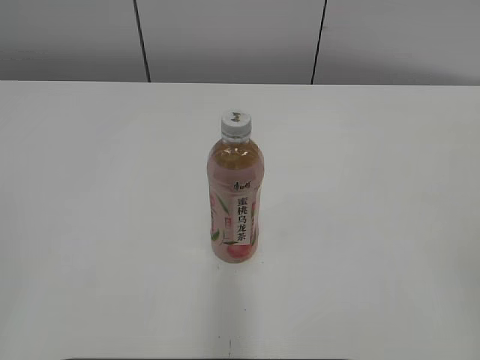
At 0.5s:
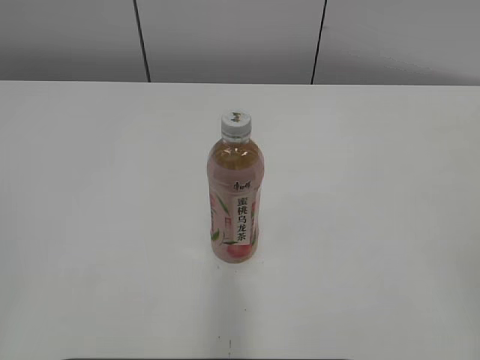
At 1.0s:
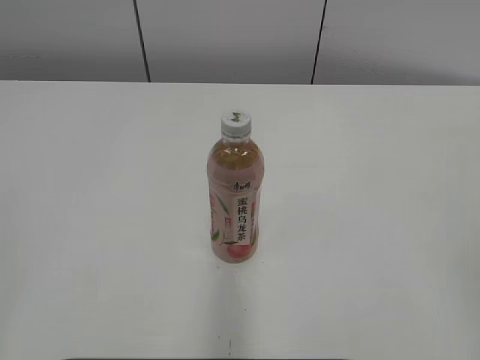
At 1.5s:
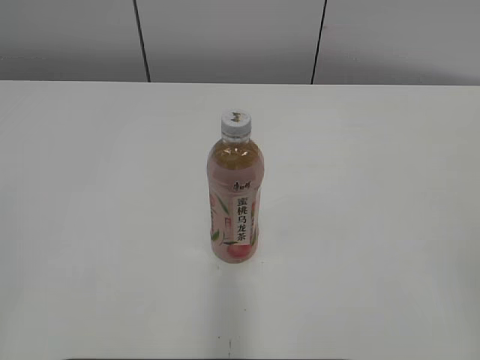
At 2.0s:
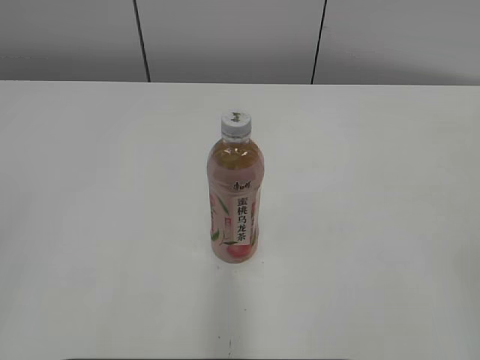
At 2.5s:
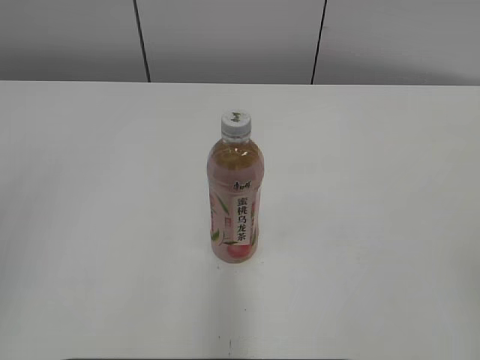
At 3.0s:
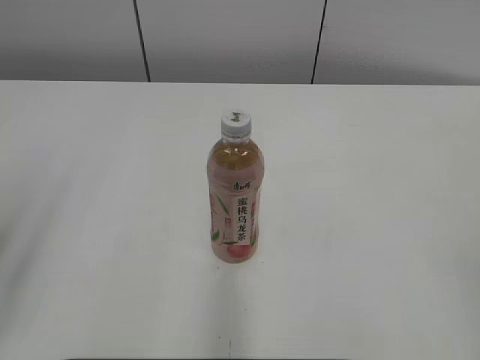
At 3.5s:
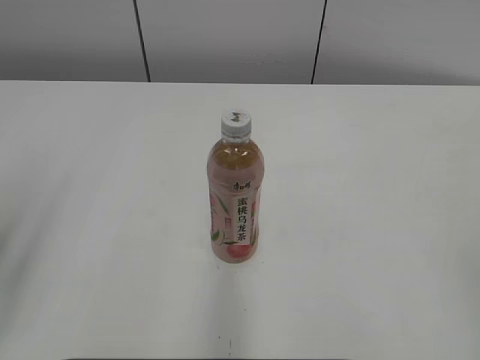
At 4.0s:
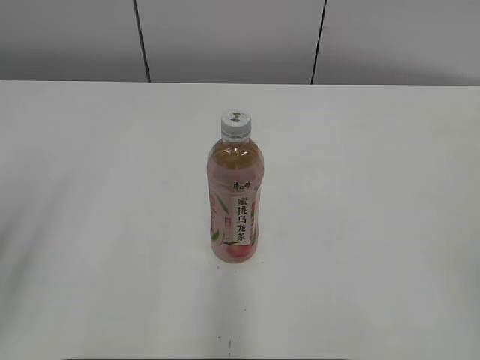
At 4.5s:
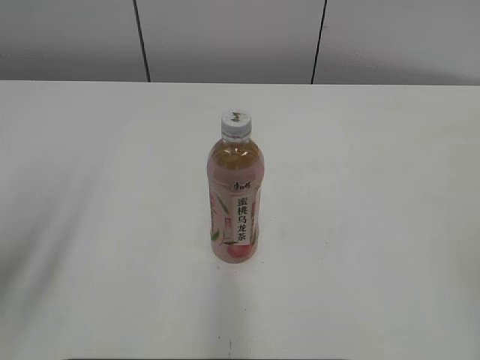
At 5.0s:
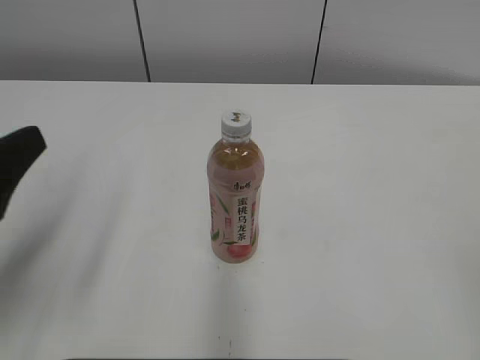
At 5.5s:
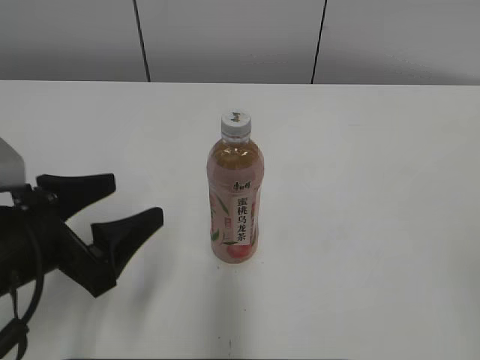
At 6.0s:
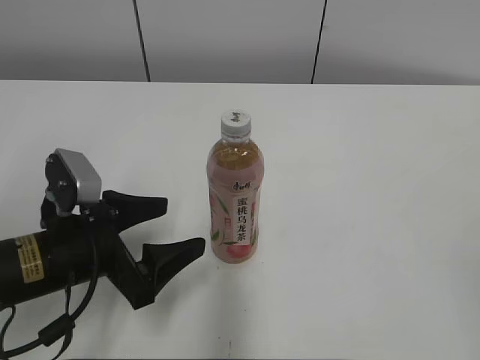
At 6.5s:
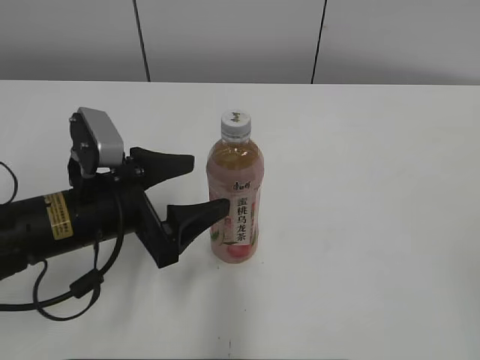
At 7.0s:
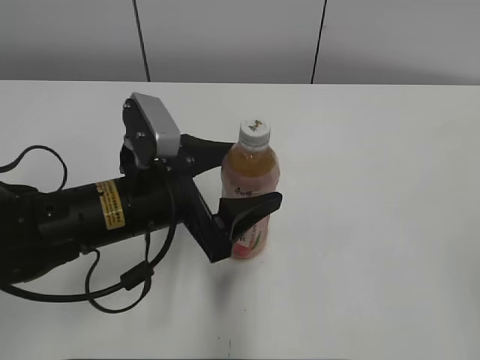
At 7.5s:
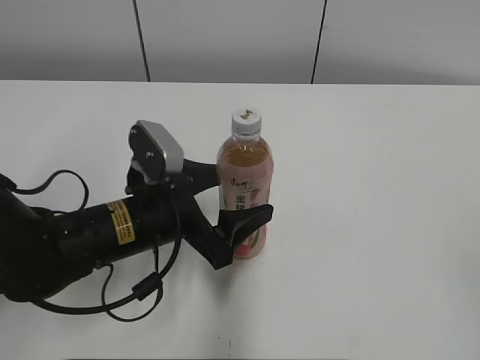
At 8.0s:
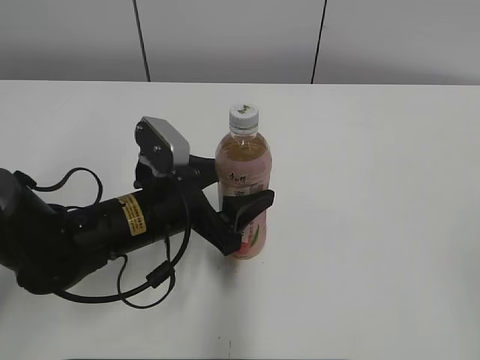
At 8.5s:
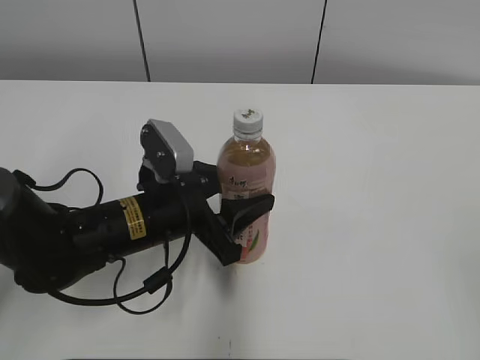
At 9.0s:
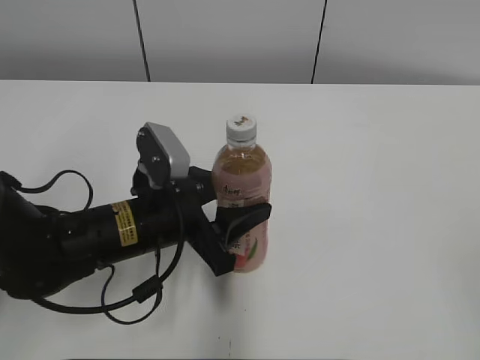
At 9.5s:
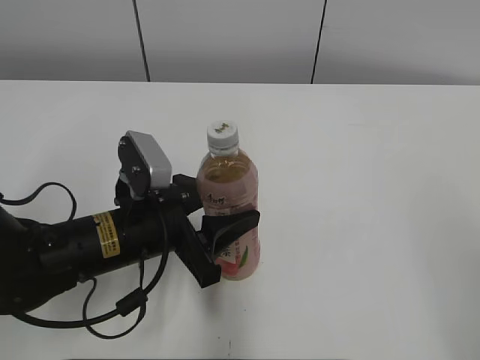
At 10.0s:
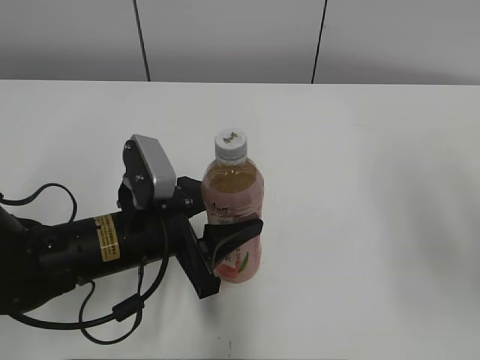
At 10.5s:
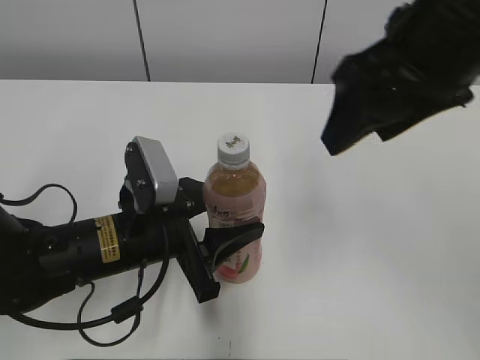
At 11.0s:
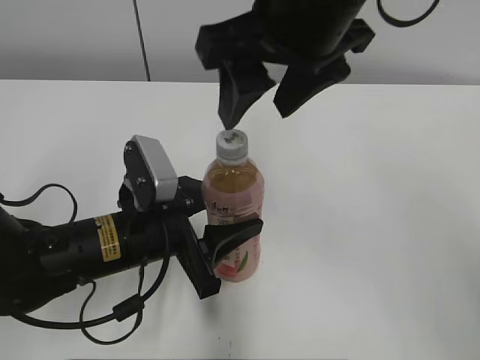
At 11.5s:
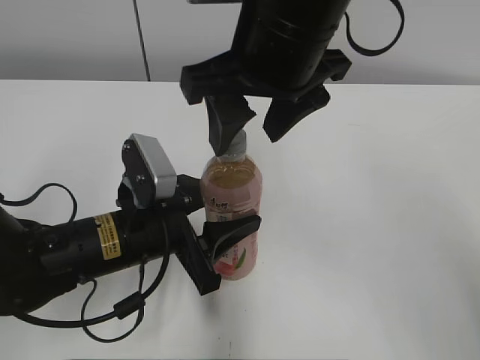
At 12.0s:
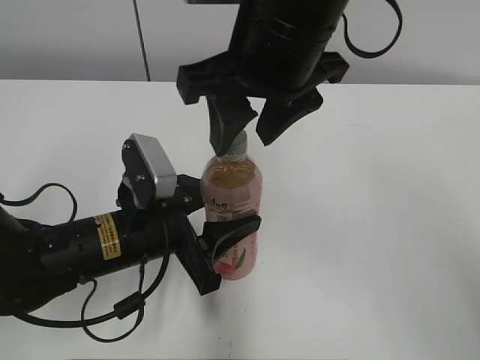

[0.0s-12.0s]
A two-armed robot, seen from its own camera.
Step, 0.0s to 8.0s: Grab the Peach Oolong Tea with the left hand.
4.0s to 6.0s: The left gripper goes roughly 20 cm downward, to the right and forward, and opens up.
6.0s to 8.0s: The left gripper moves to the right and forward, approximately 10 cm.
8.0s to 10.0s: The right gripper heads forward, covering approximately 15 cm. Meanwhile the left gripper closes its fingers.
10.0s to 12.0s: The right gripper shifts roughly 25 cm to the left and forward.

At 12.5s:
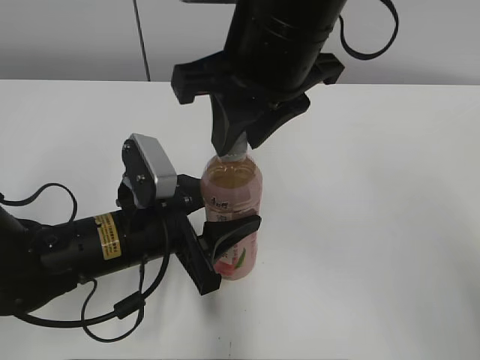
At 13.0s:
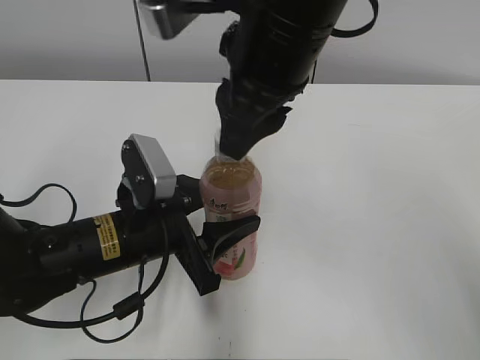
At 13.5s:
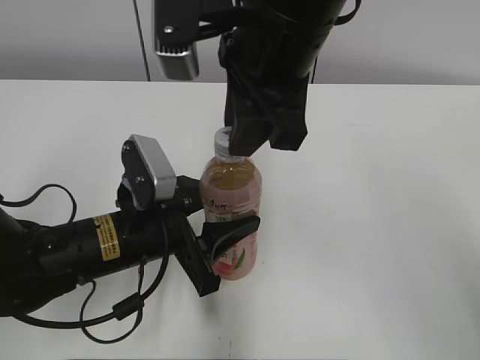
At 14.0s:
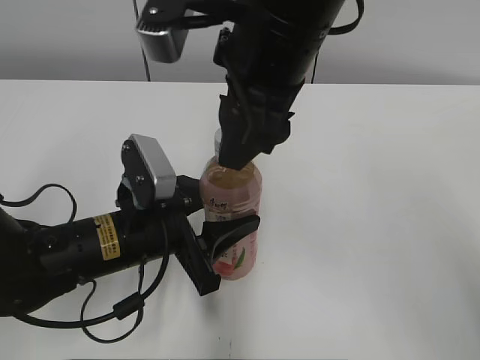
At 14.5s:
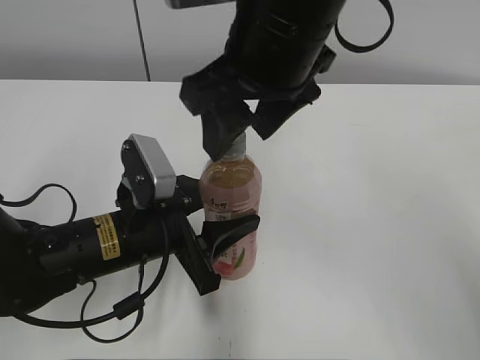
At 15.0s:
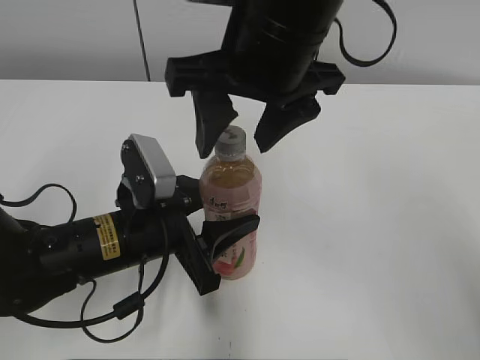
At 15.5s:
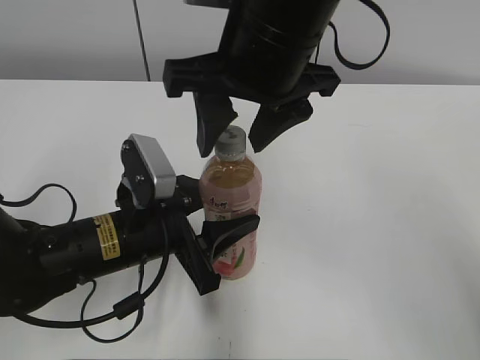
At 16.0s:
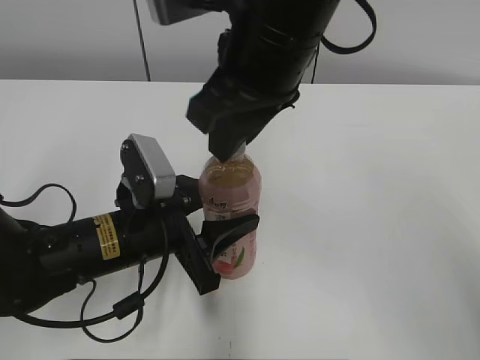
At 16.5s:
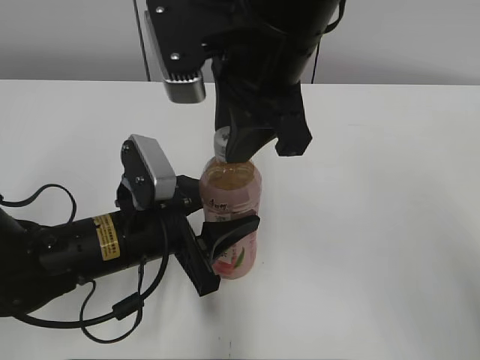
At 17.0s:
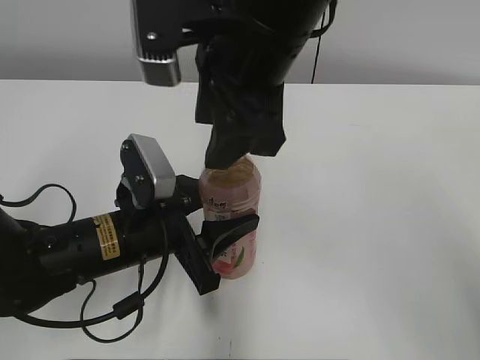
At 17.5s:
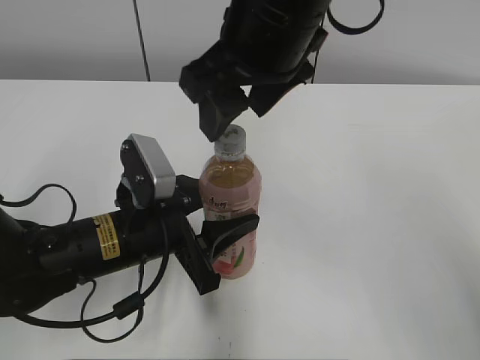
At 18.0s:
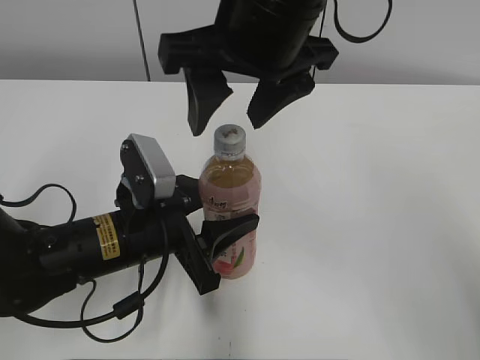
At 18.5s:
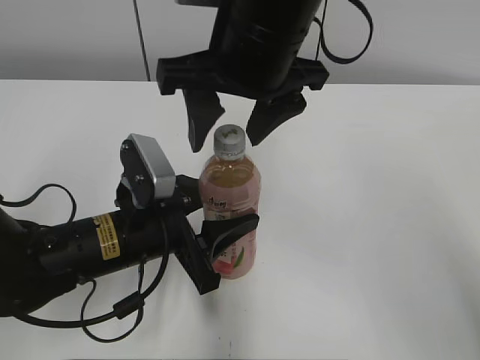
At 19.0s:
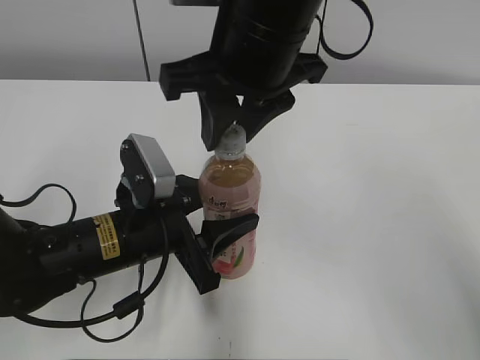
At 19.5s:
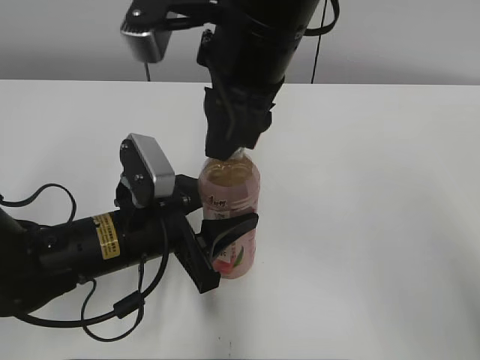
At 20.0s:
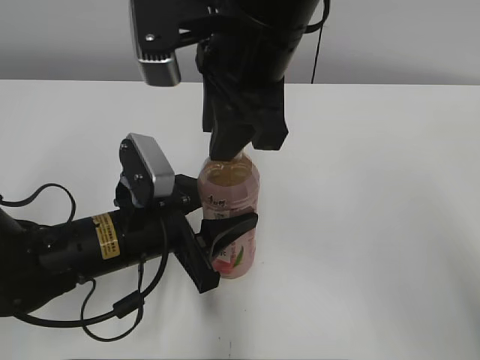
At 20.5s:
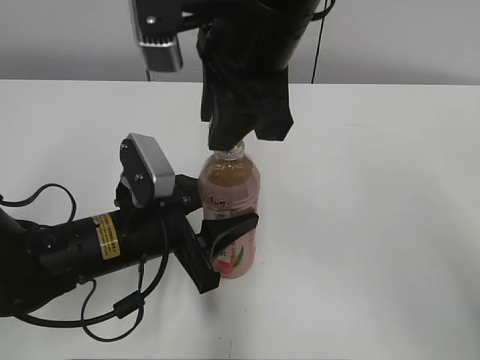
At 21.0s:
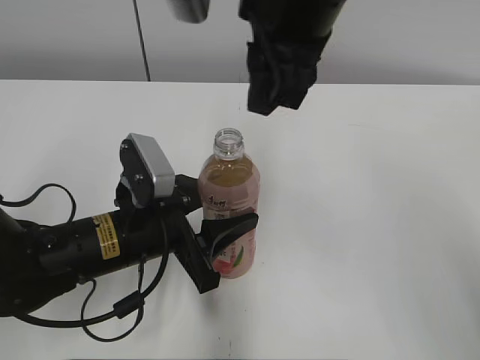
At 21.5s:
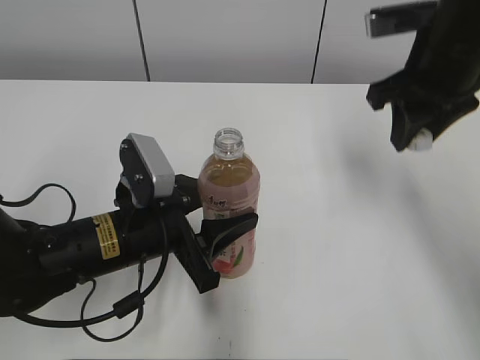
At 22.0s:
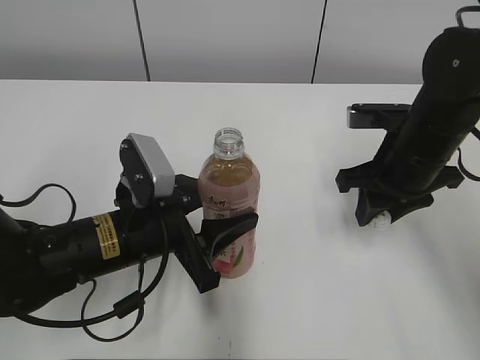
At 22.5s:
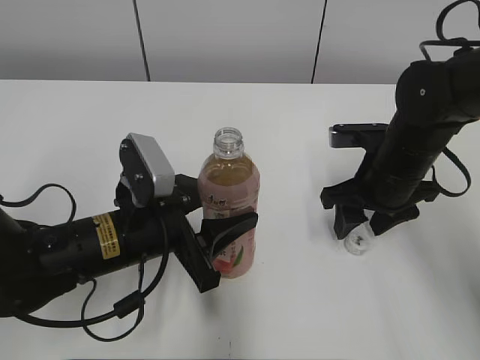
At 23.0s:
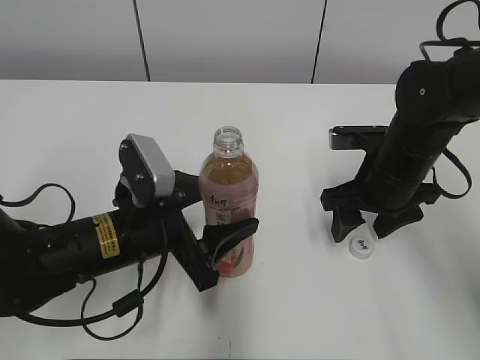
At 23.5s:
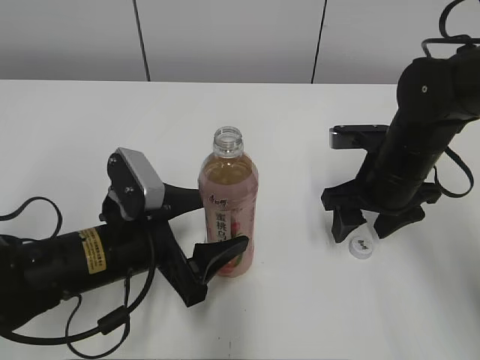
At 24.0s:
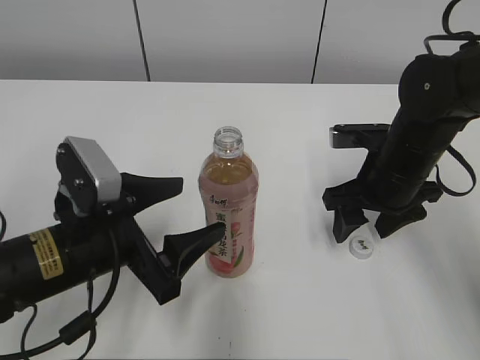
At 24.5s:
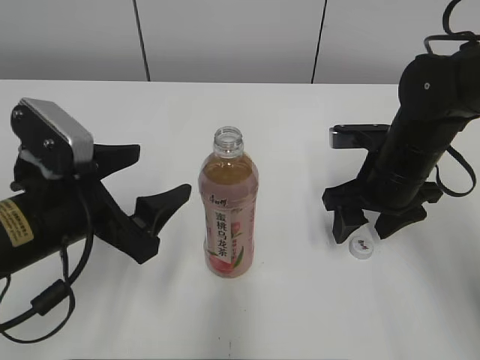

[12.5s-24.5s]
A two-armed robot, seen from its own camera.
Step, 21.0s to 22.5s: Place the bottle cap on the right.
Step, 23.0s to 23.5s: Place the Peach Oolong Tea with the left hand.
12.5s to 14.5s: The right gripper opens up.
14.5s to 16.5s: The right gripper closes its fingers.
16.5s to 18.5s: The right gripper opens.
18.5s to 20.5s: The right gripper closes up.
20.5s to 22.5s: The right gripper travels downward and to the right by about 25 cm, and opens its fingers.
22.5s to 24.5s: The left gripper goes approximately 10 cm upward and to the left, and opens up; the right gripper opens its fingers.

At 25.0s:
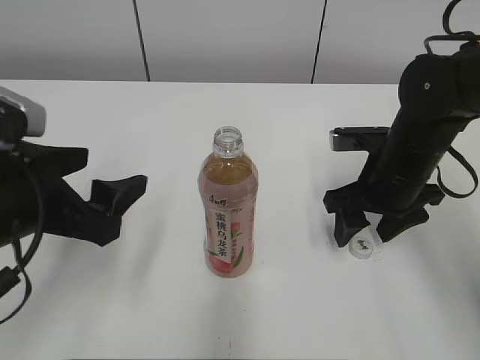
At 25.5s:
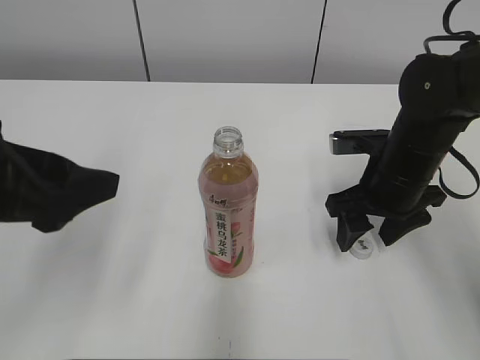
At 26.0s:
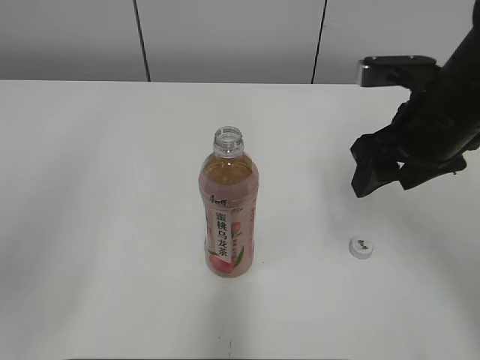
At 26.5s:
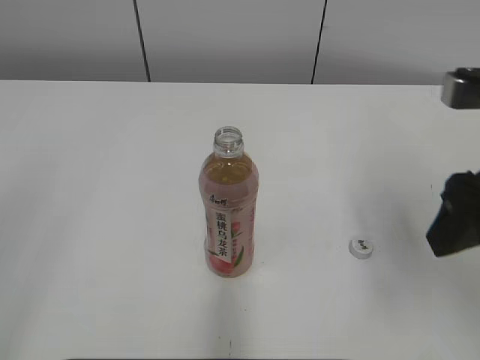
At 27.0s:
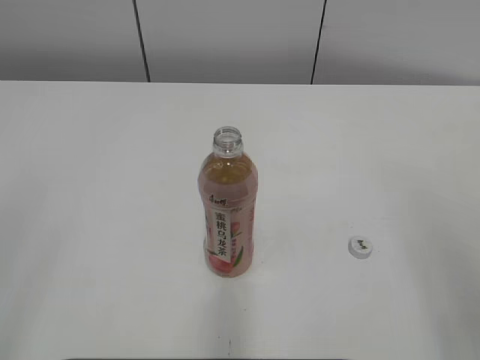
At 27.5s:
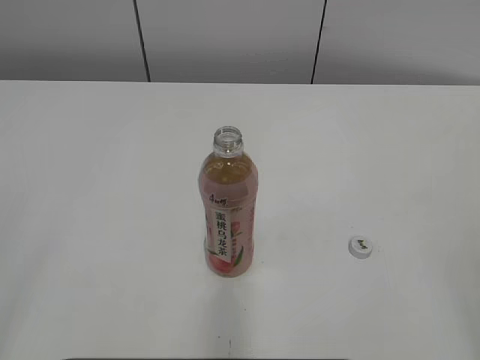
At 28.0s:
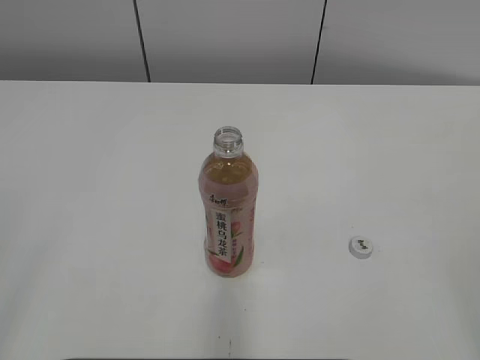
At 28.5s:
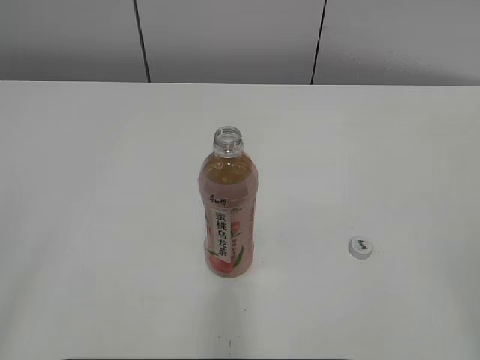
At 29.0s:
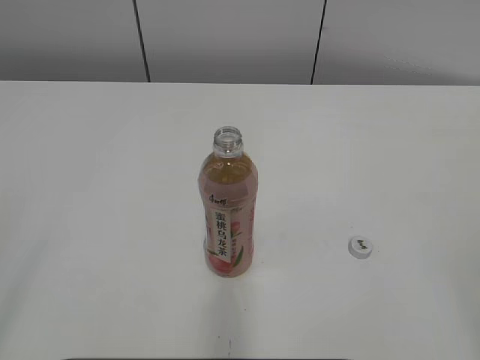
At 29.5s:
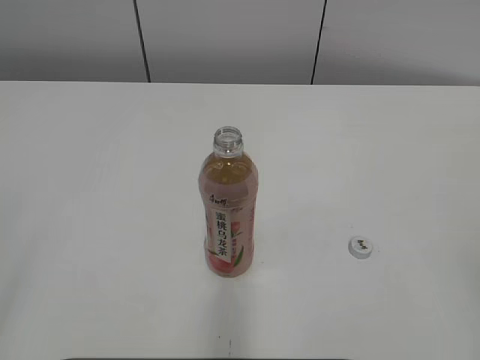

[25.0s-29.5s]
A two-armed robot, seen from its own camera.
25.0s to 27.0s: The right gripper travels backward and upward by about 25 cm; the left gripper moves backward, upward and to the left, about 25 cm.
